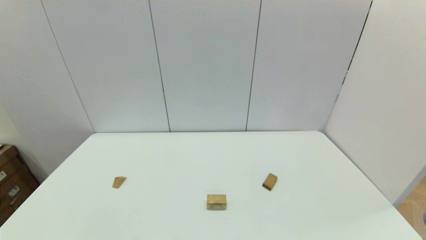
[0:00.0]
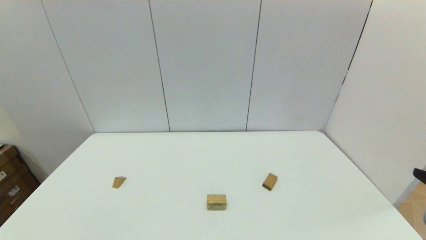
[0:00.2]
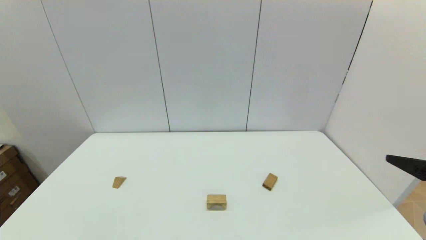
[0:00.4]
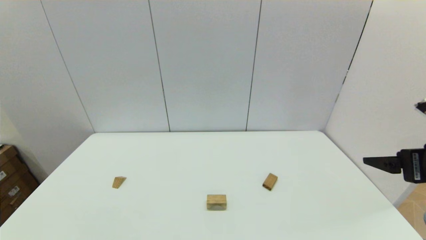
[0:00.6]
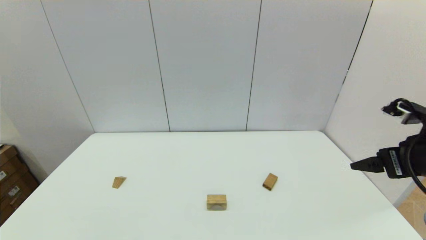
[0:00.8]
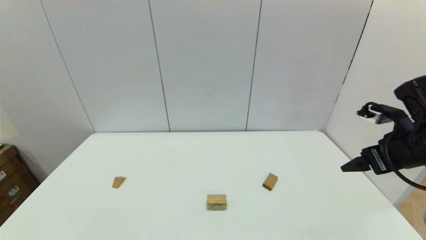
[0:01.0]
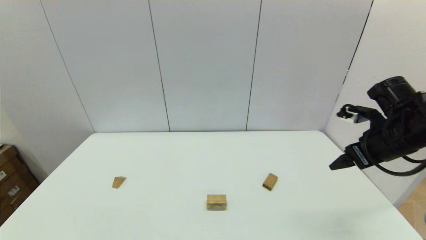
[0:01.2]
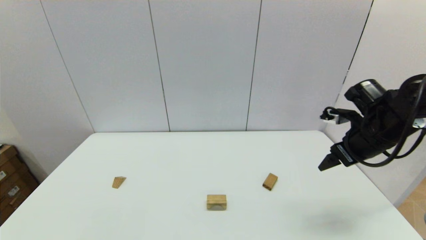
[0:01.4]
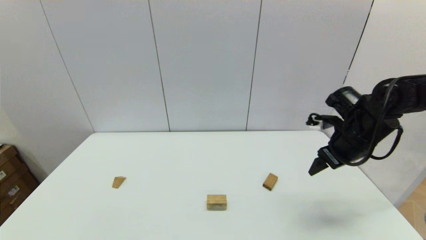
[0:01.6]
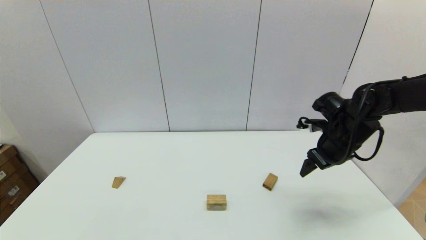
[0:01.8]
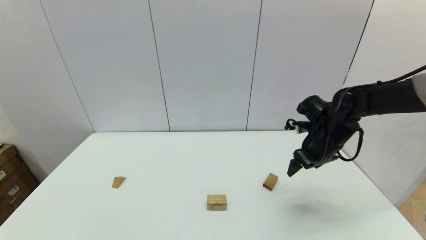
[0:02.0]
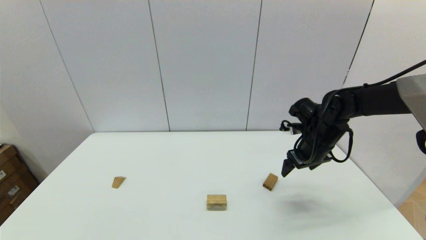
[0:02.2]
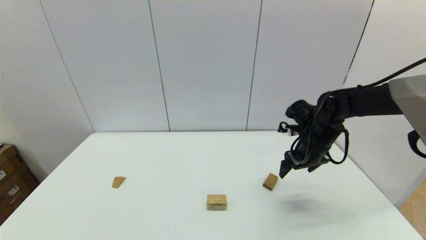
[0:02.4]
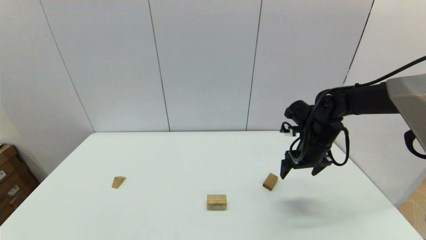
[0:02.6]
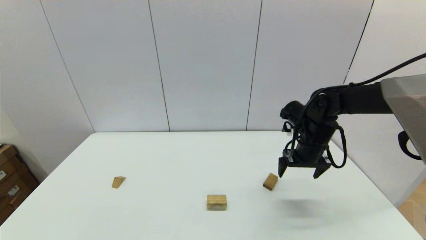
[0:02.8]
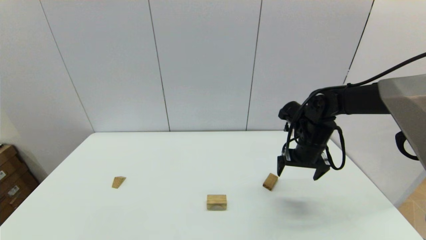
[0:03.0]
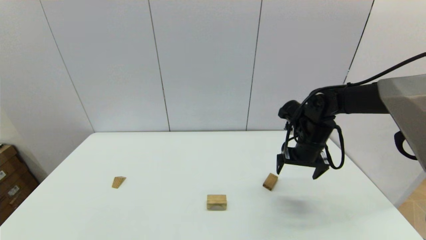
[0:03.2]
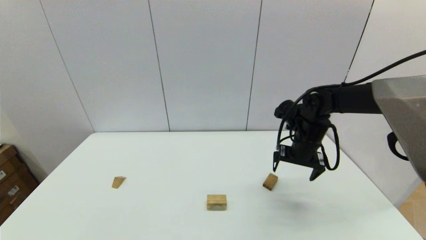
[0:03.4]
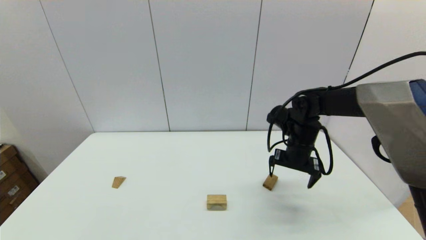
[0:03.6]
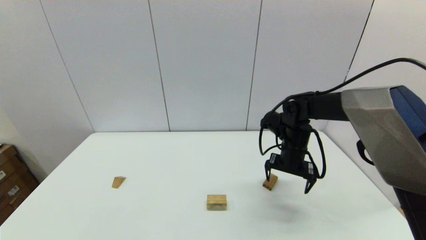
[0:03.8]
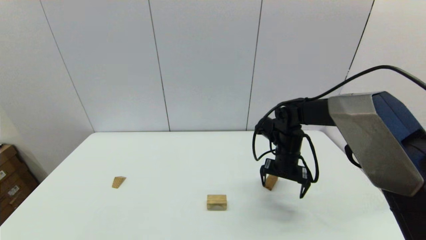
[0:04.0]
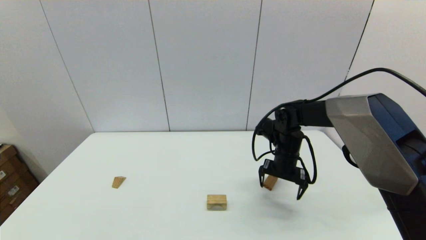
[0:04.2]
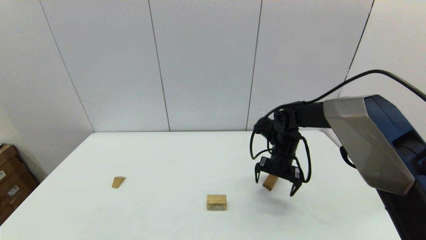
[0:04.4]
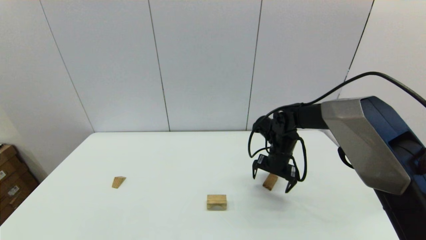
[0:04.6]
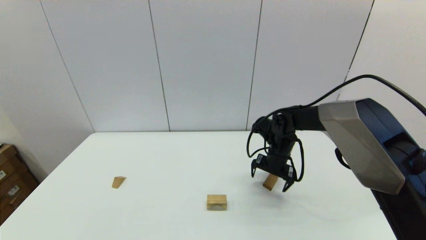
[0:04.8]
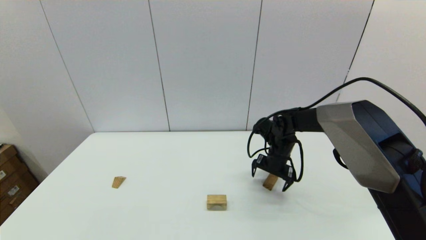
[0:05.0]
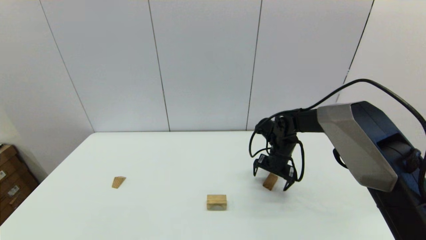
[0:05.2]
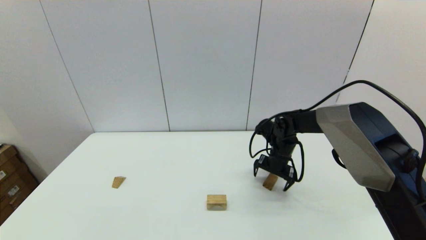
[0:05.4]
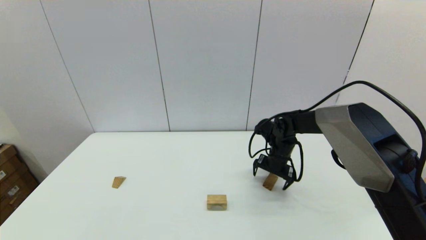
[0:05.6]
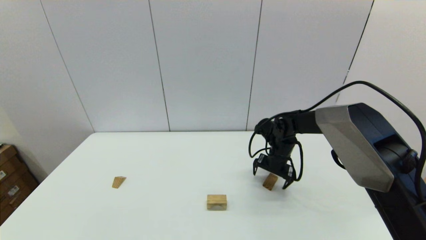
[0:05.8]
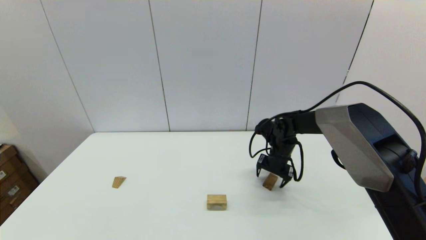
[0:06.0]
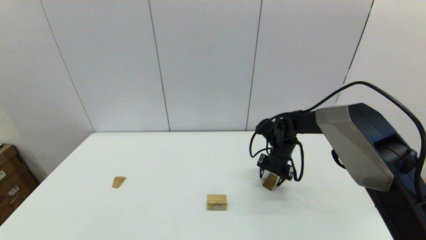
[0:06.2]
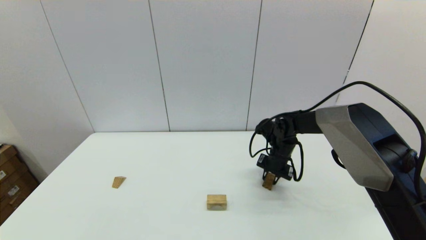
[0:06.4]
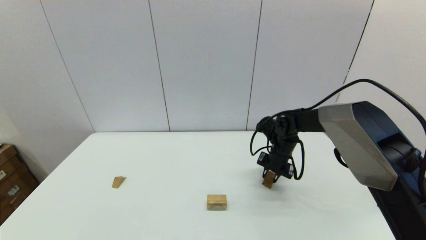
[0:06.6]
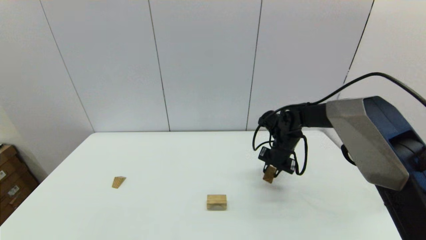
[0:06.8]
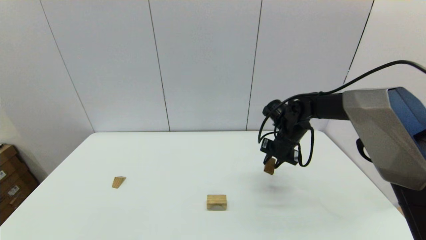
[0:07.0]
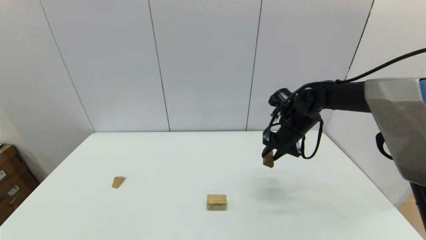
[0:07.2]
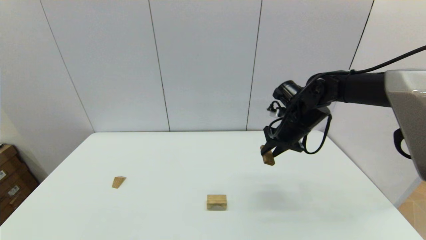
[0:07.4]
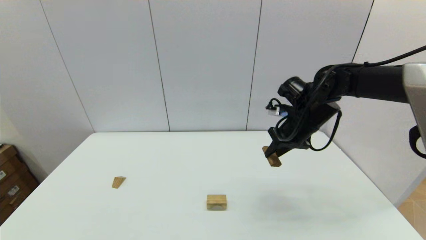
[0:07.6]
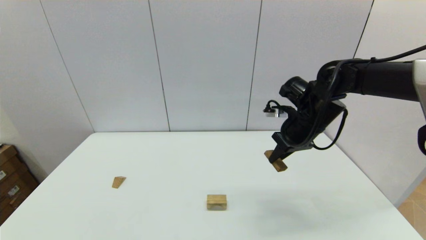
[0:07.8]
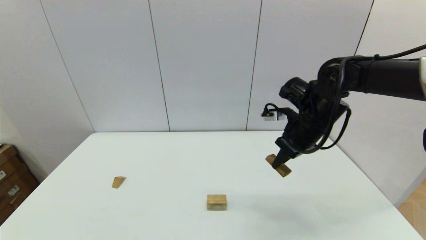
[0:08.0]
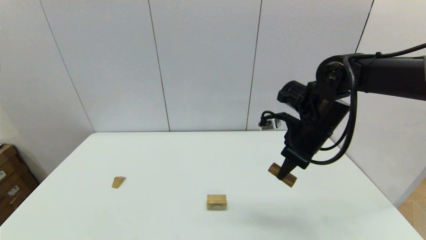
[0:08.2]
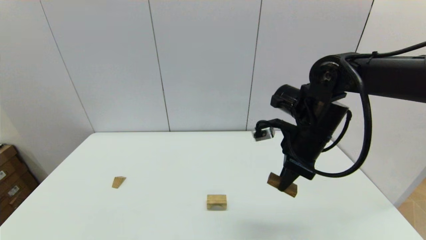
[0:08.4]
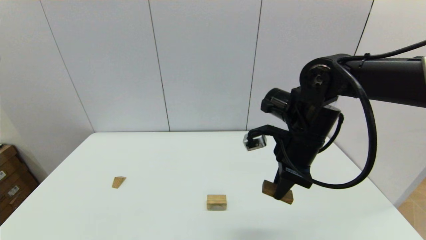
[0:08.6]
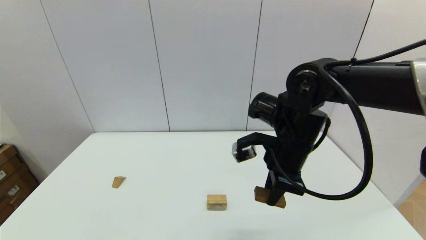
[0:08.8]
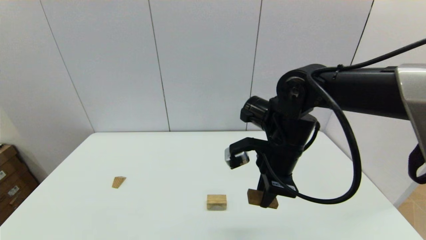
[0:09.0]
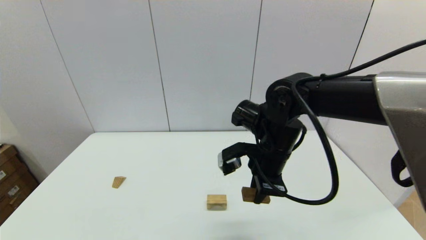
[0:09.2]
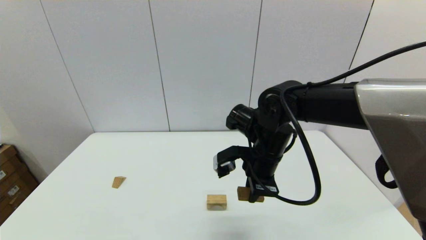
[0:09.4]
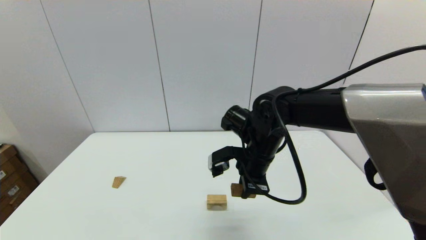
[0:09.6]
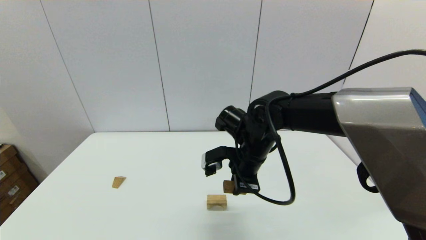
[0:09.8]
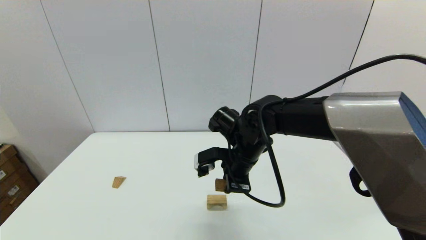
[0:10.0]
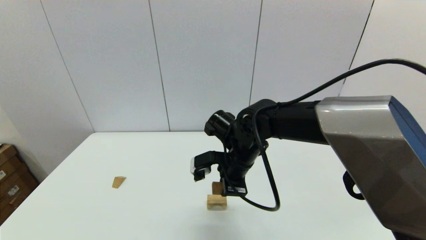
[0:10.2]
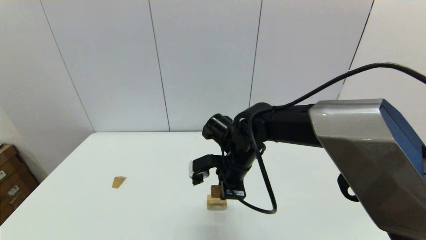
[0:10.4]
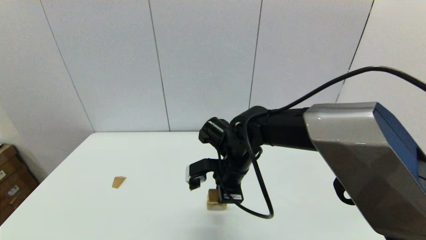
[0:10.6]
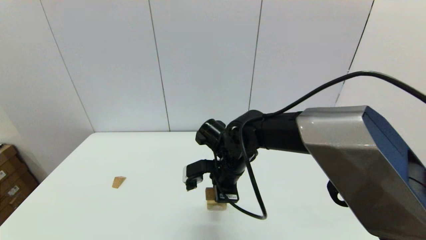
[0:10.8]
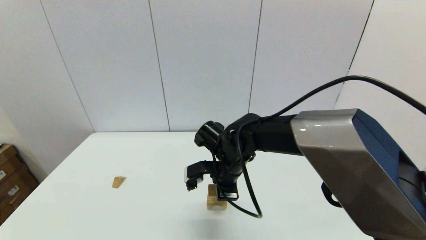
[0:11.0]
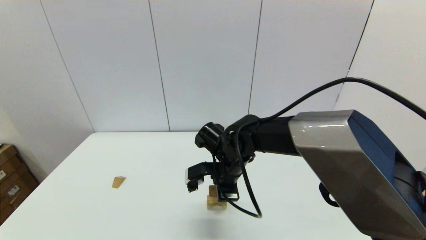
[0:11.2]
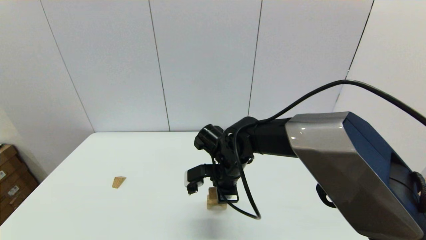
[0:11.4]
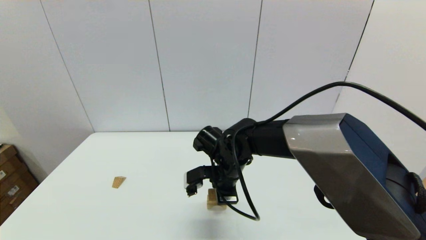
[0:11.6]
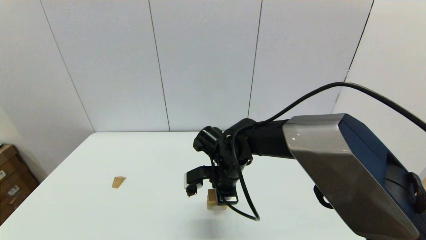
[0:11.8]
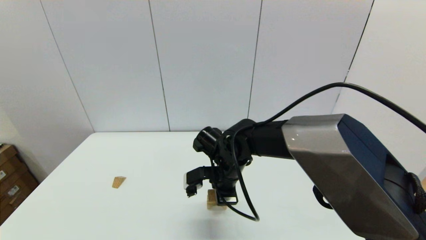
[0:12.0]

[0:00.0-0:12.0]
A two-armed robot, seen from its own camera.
Task of the whole recording: place the arched building blocks in the center of the table, set up the rectangular building blocks, and then set up the triangular building blocks.
Step, 0:00.0 to 0:06.2: Grasp the box-shaped block with the right gripper.
0:00.0 to 0:01.6: The right gripper moves forward, about 30 cm.
0:01.6 to 0:03.0: The right gripper goes some 5 cm to the left.
0:03.0 to 0:04.4: The right gripper heads to the left and downward, covering approximately 5 cm.
0:04.4 to 0:06.0: The right gripper changes place by some 5 cm.
0:06.0 to 0:07.6: The right gripper travels upward by some 15 cm, and closes.
0:07.6 to 0:09.0: The right gripper travels to the left and backward by approximately 10 cm.
0:09.0 to 0:10.4: The right gripper moves to the left and downward, approximately 10 cm.
0:10.4 to 0:12.0: The grippers move only a little.

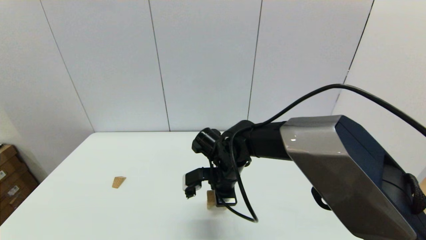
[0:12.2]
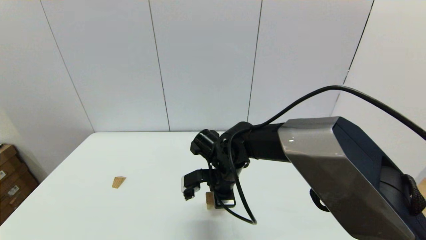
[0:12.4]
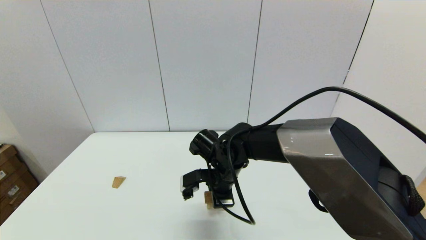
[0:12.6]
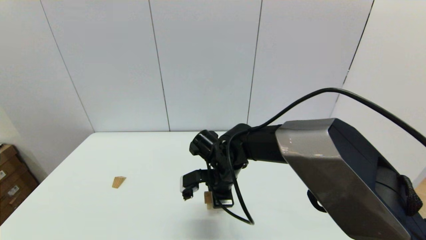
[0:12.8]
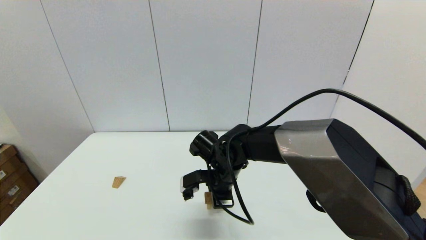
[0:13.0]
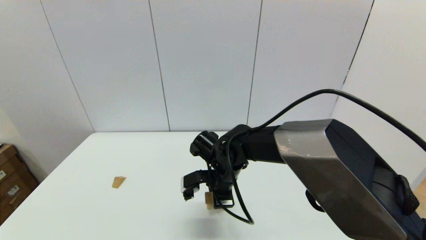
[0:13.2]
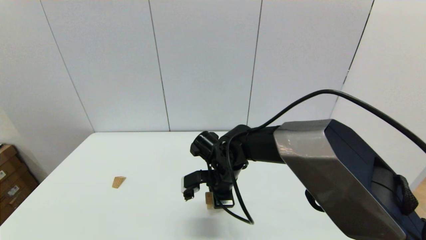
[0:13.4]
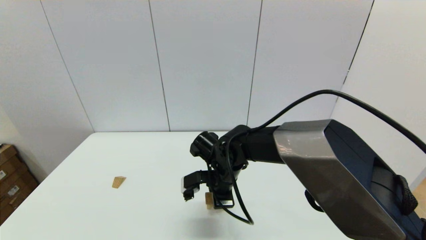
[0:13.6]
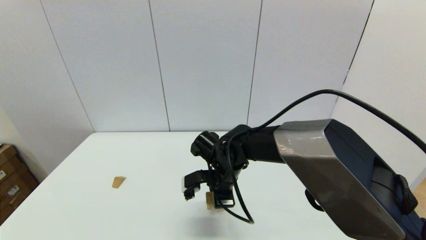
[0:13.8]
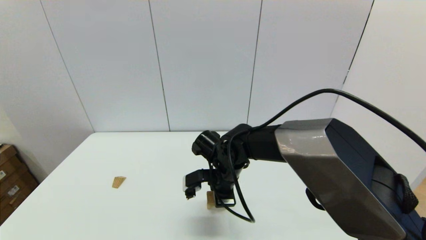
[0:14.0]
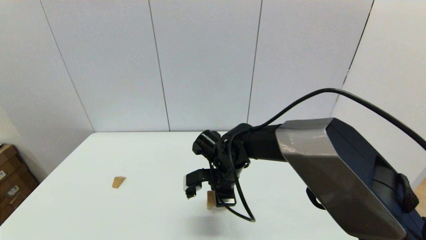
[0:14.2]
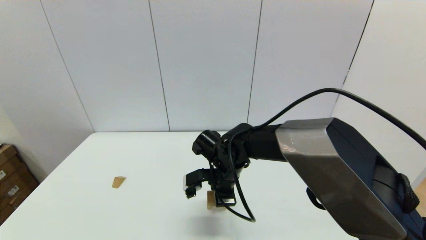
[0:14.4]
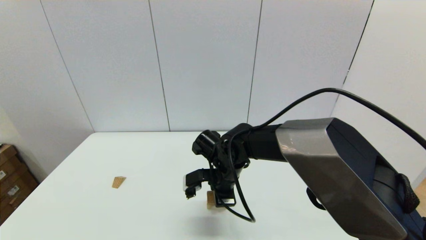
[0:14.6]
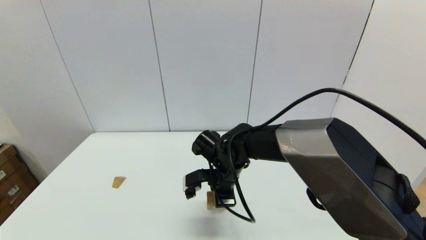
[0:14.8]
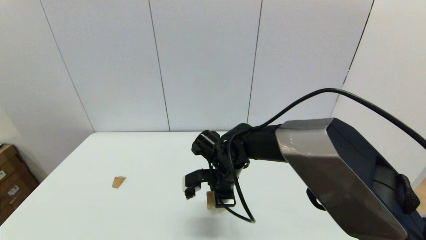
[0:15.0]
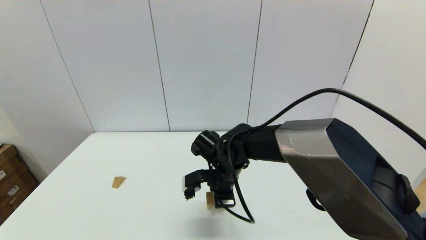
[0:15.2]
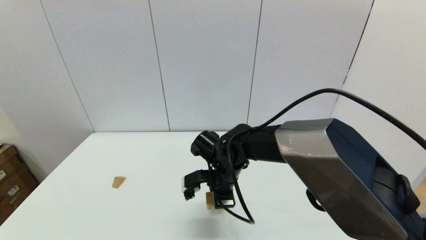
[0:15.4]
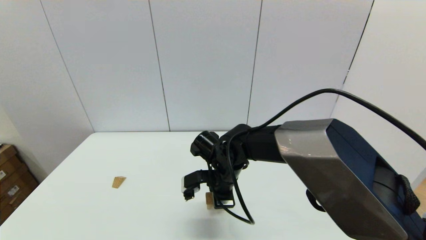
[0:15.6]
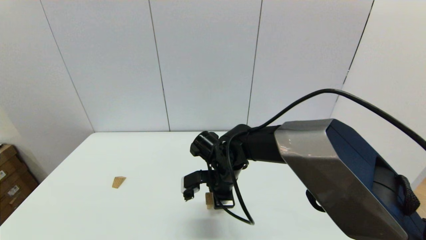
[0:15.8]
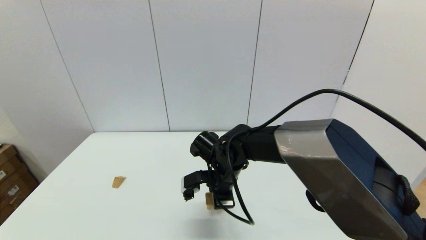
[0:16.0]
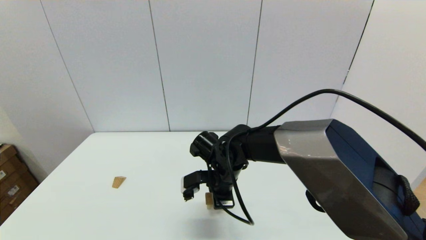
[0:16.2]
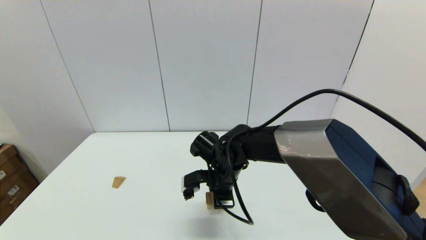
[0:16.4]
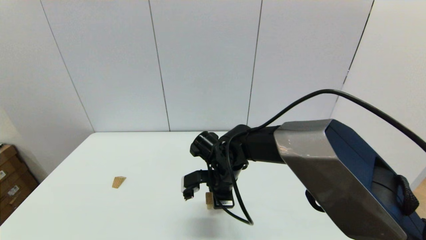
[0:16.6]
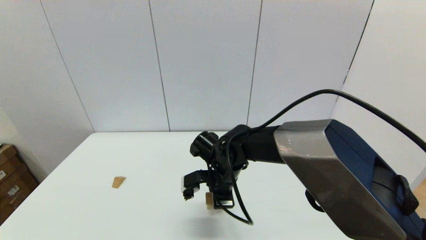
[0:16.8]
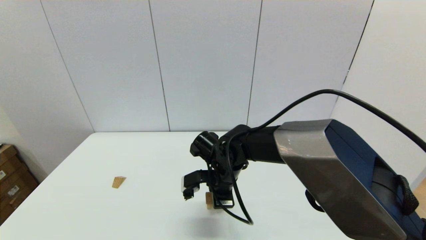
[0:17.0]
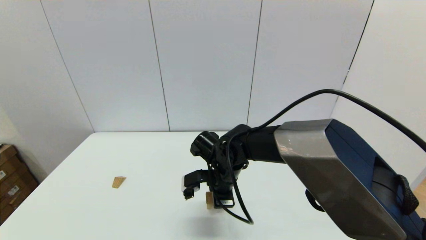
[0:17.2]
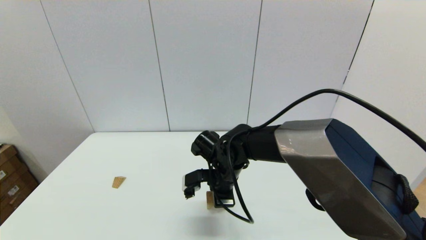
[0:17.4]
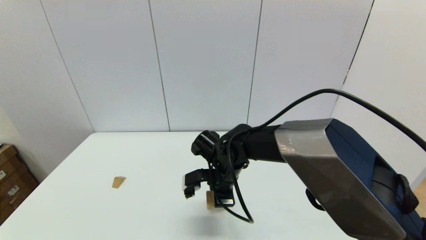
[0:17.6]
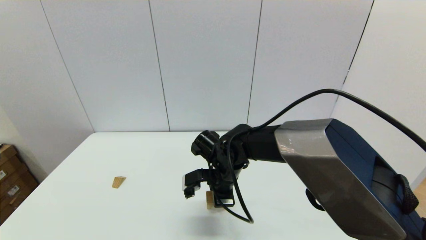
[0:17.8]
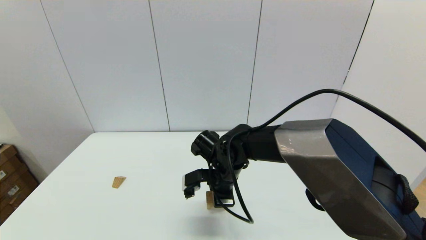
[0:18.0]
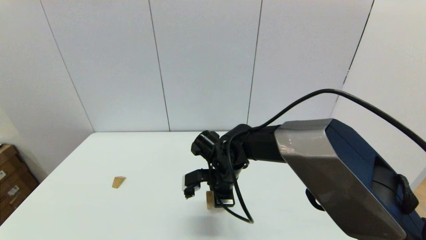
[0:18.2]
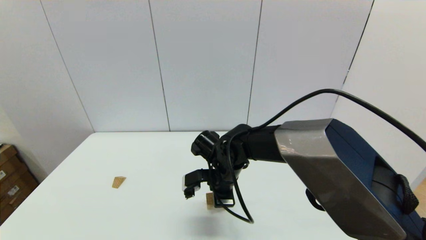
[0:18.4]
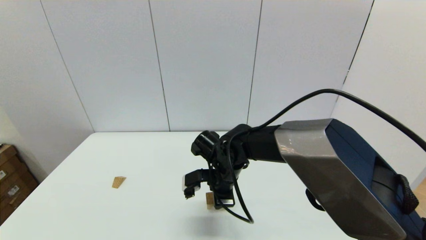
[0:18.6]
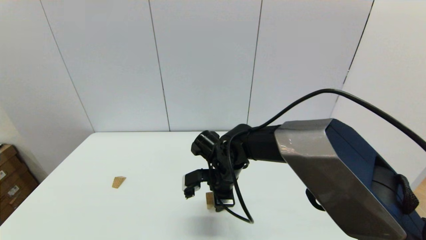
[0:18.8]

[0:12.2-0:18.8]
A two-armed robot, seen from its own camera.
Task of the whole recording: place the arched building blocks in the center of the table, set up the rectangular building blocks, and then set up the triangular building blocks.
0:12.2 to 0:17.2: The two grippers keep their place.
0:17.2 to 0:18.8: The right gripper opens up.
